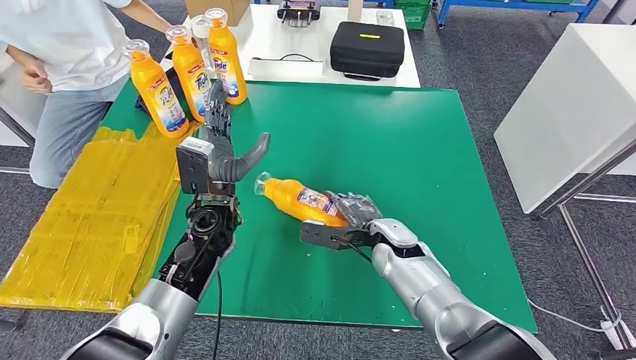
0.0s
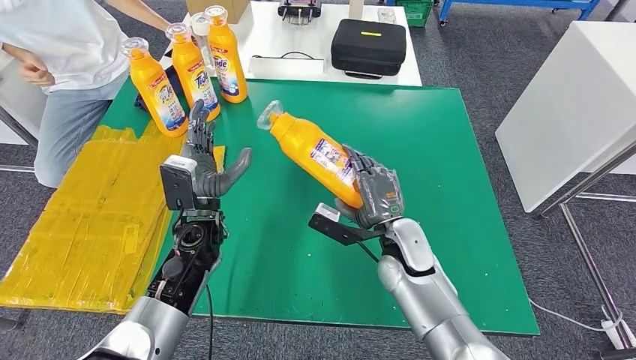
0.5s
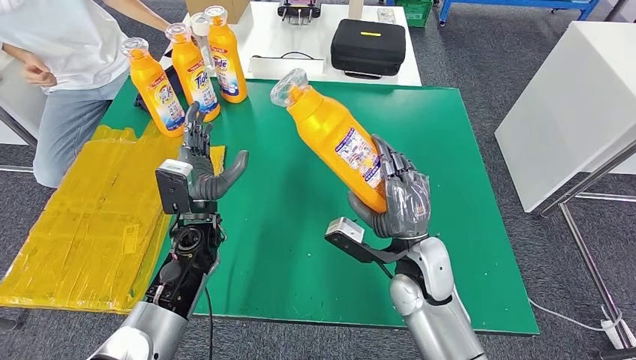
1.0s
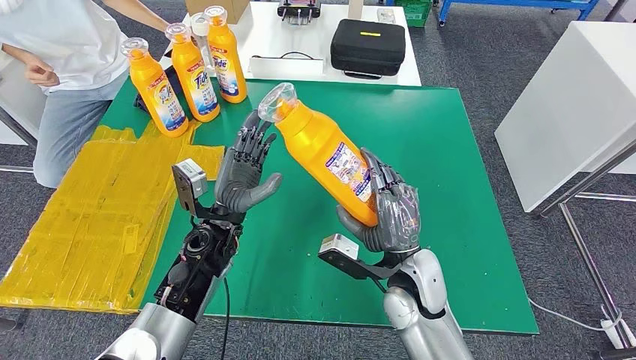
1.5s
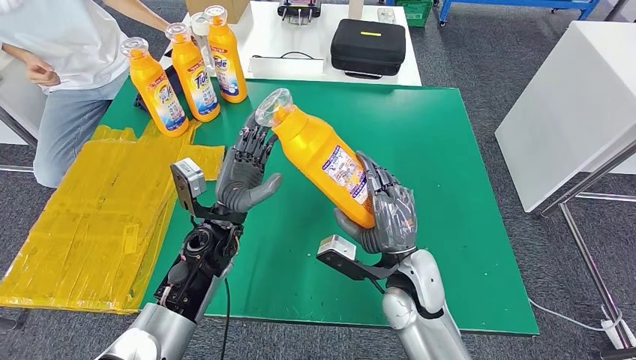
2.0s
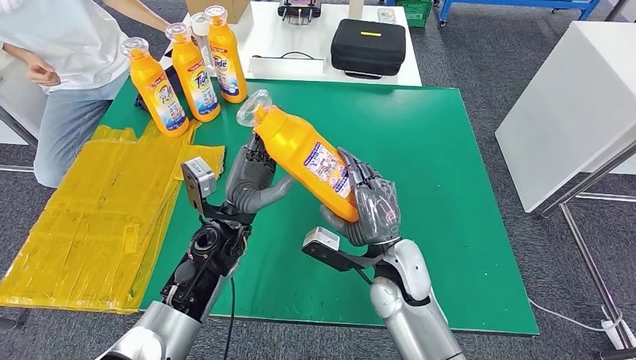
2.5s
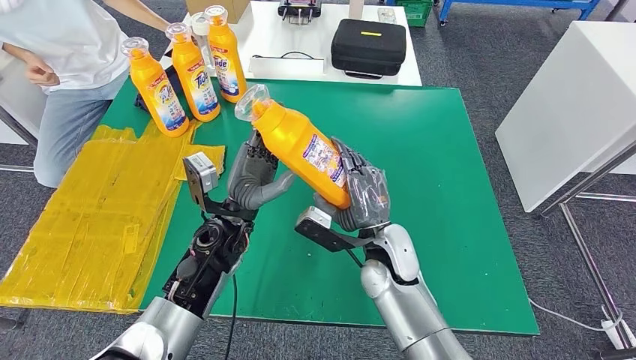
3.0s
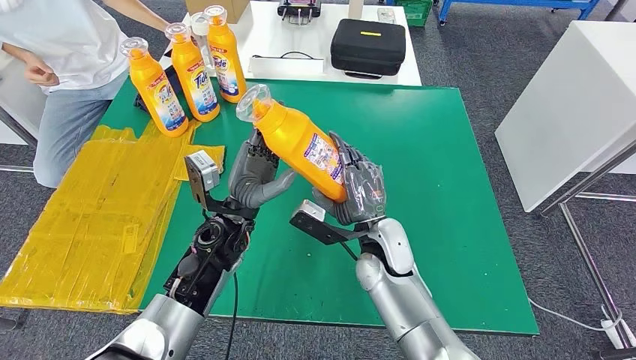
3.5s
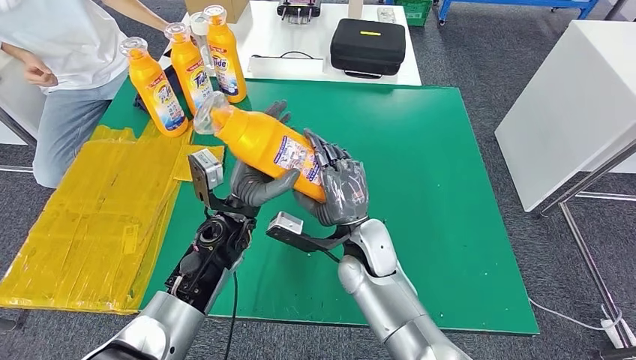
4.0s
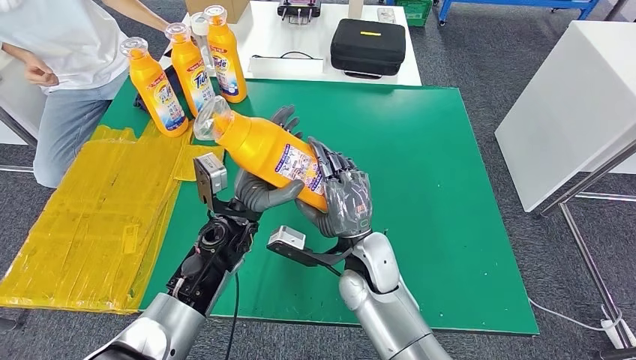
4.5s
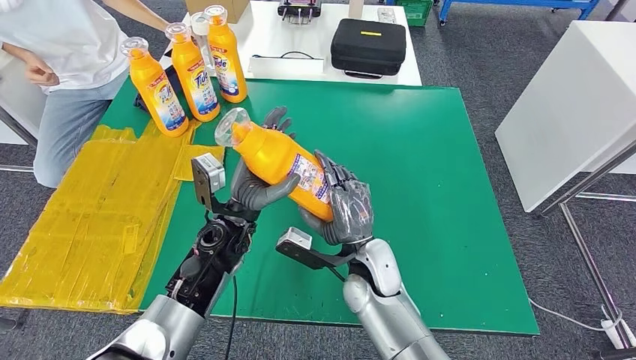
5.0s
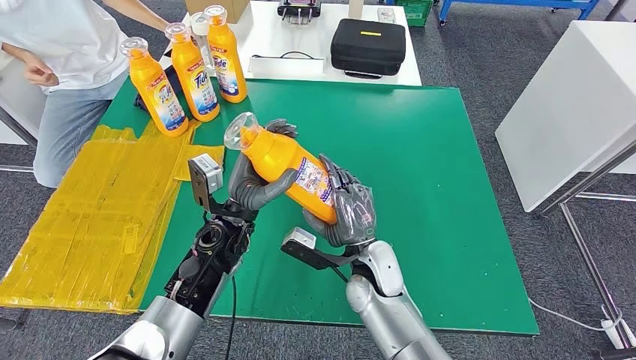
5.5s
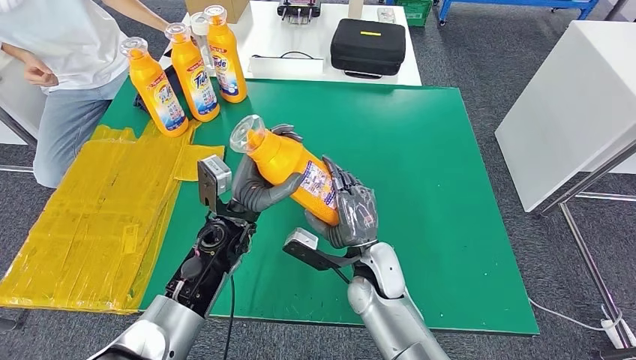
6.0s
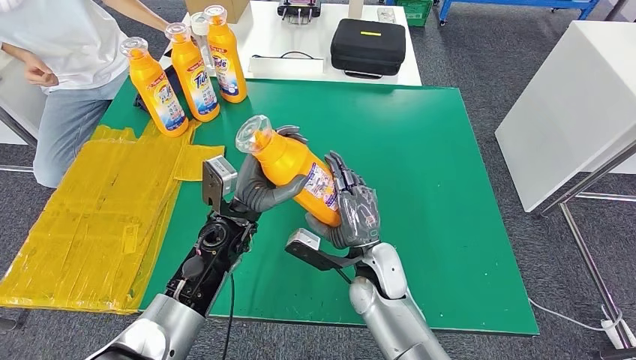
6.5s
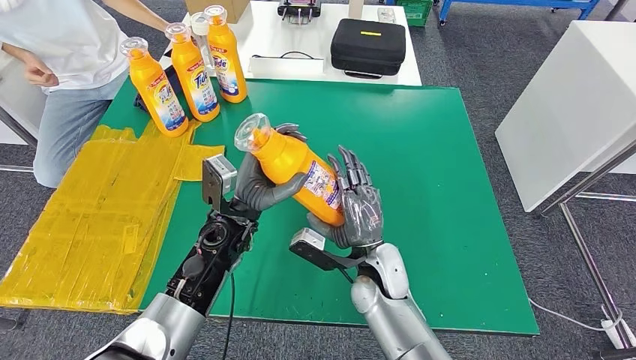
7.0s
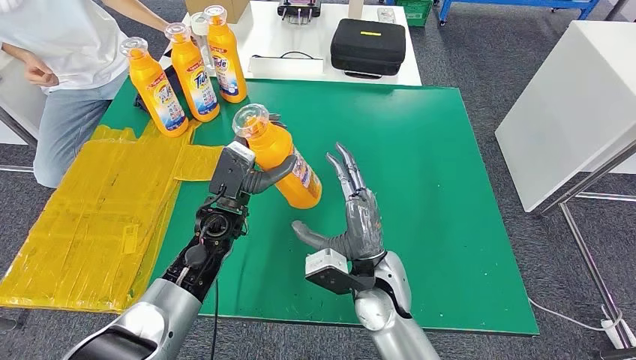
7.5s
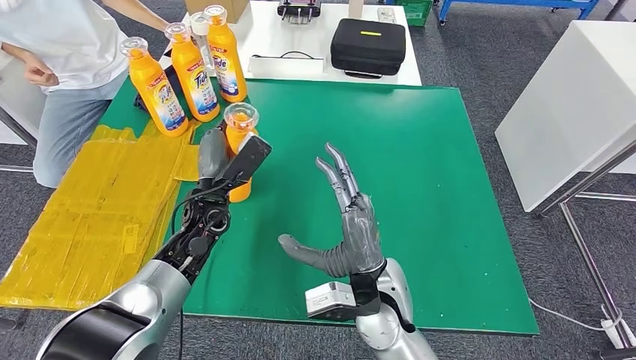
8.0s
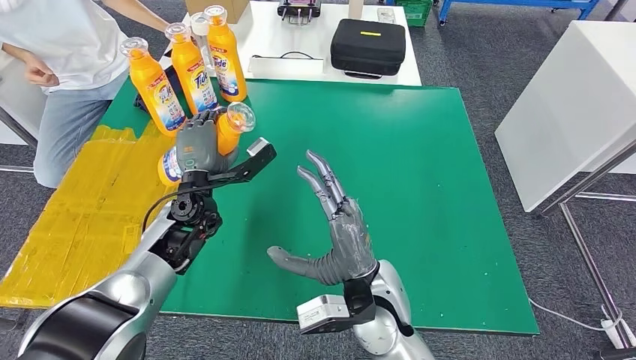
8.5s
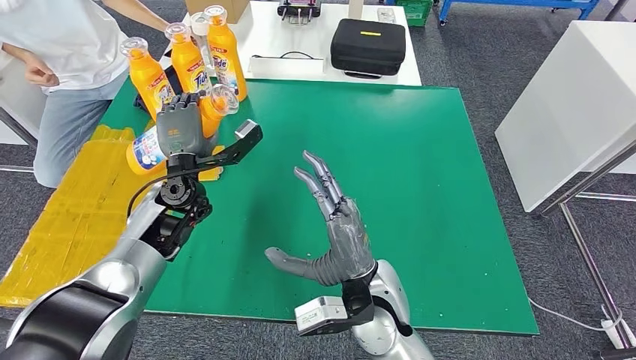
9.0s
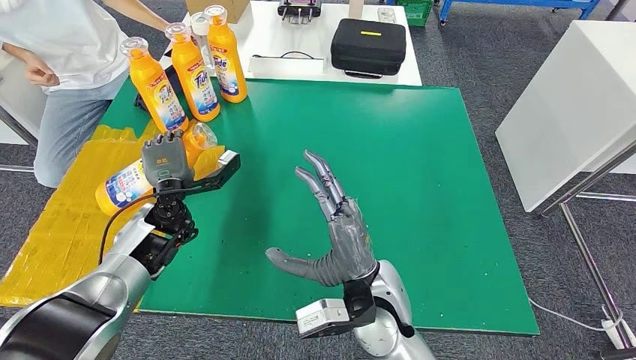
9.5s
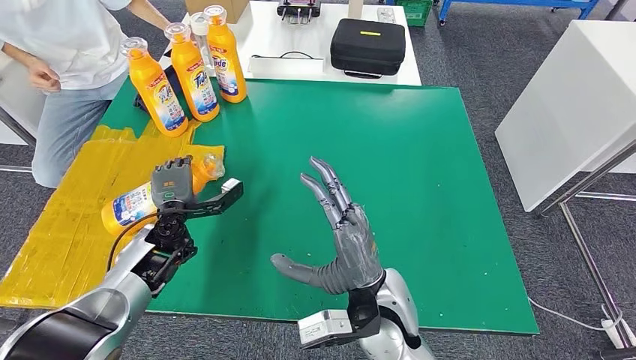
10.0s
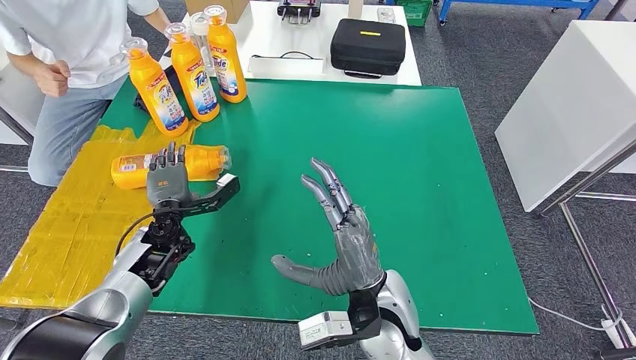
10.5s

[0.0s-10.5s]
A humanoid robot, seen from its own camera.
Step, 0.0s to 2.5s: Pick up the bottle from the table.
Step, 3.0s to 10.5s: Flip the bottle to face forward.
2.0s to 4.0s: The right hand moves to the left, roughly 5 cm.
4.0s to 6.5s: The right hand moves roughly 5 cm.
6.5s to 8.5s: The left hand shifts about 10 cm to the left, while the right hand heads upward and backward, covering approximately 10 cm.
8.5s to 10.5s: The left hand goes approximately 10 cm to the left and downward.
